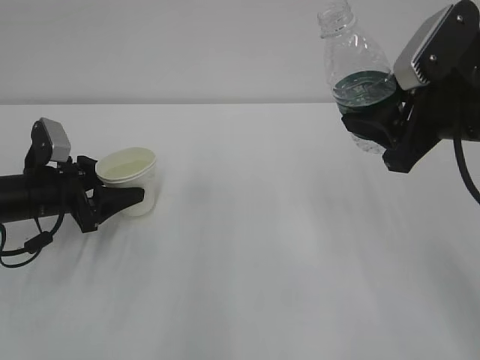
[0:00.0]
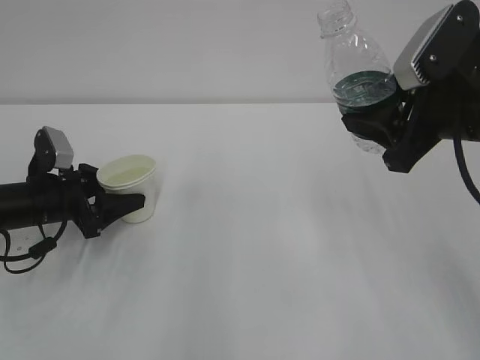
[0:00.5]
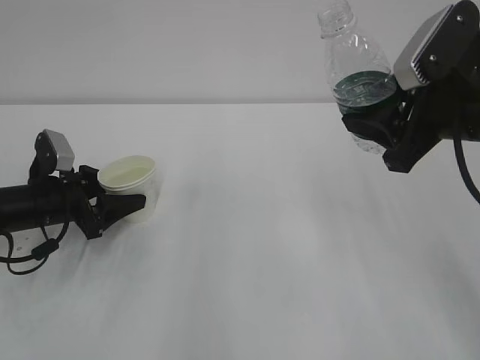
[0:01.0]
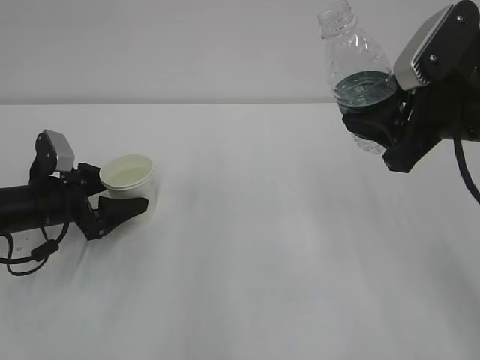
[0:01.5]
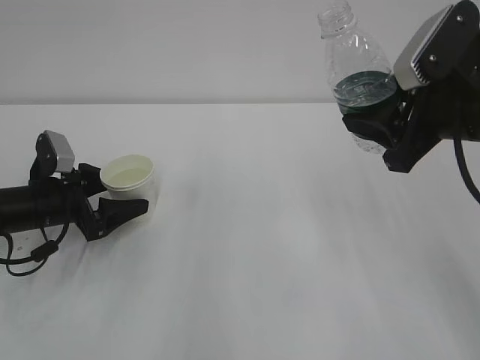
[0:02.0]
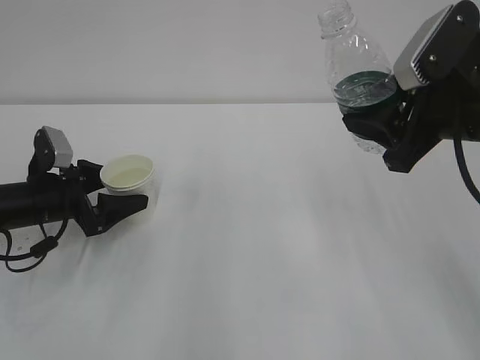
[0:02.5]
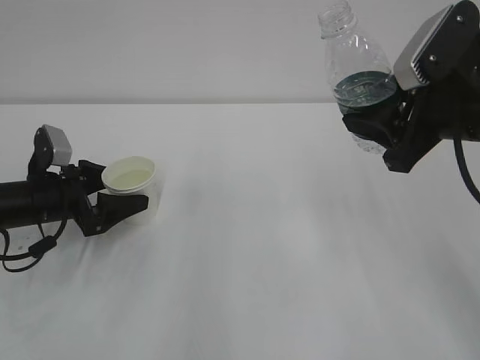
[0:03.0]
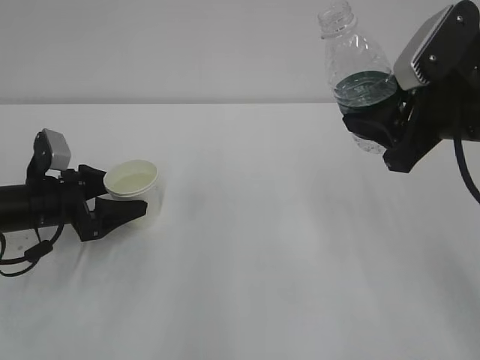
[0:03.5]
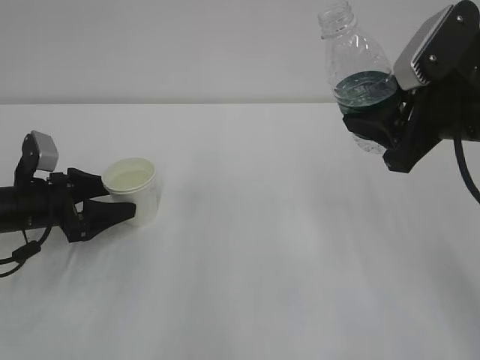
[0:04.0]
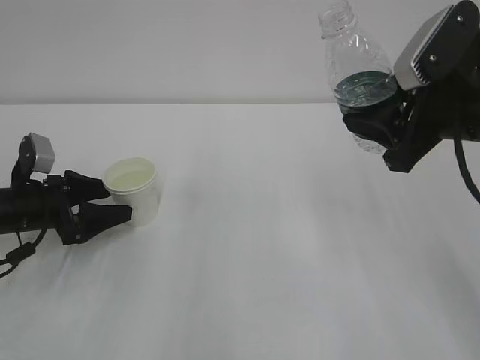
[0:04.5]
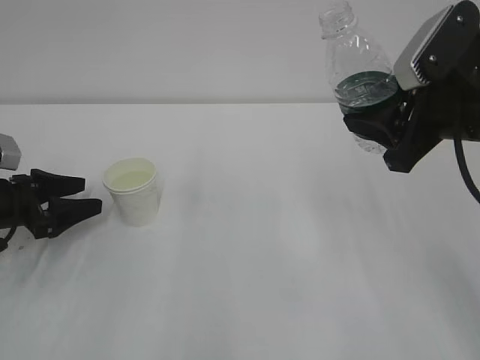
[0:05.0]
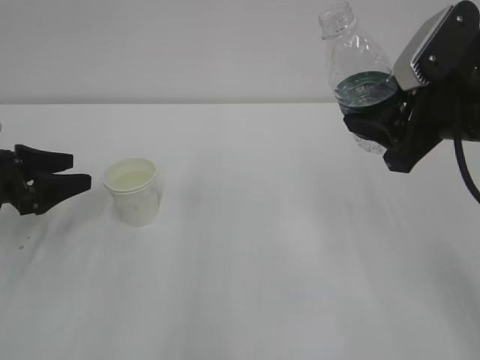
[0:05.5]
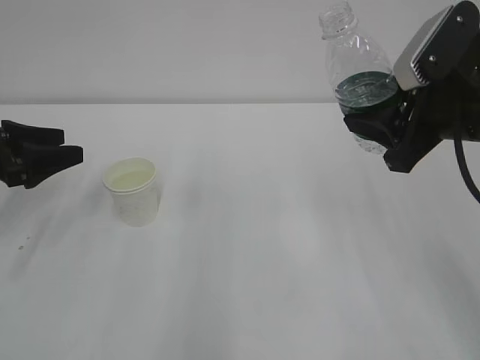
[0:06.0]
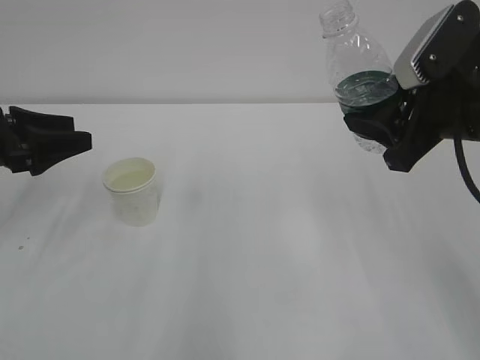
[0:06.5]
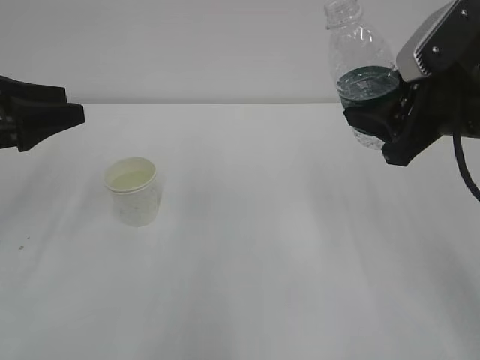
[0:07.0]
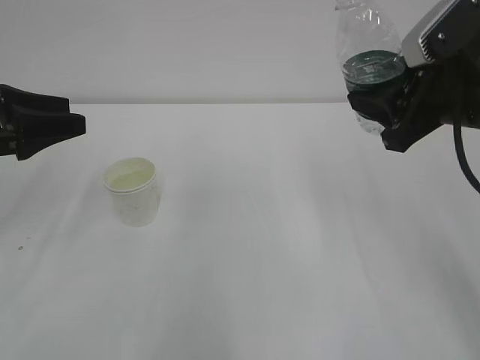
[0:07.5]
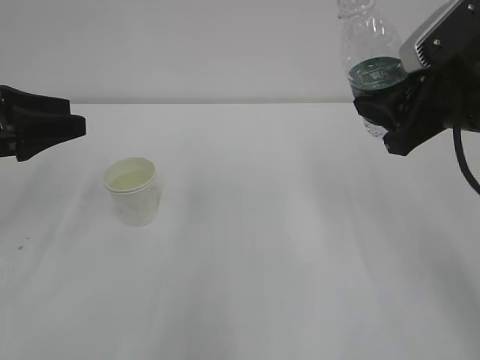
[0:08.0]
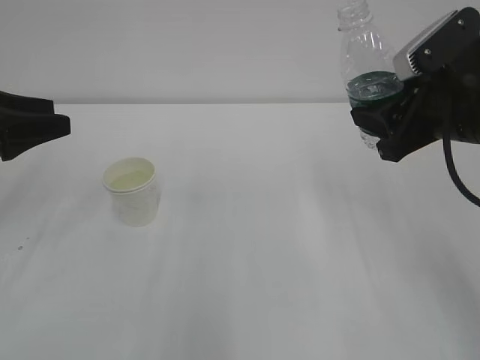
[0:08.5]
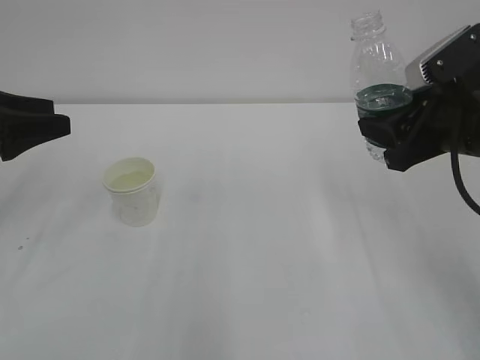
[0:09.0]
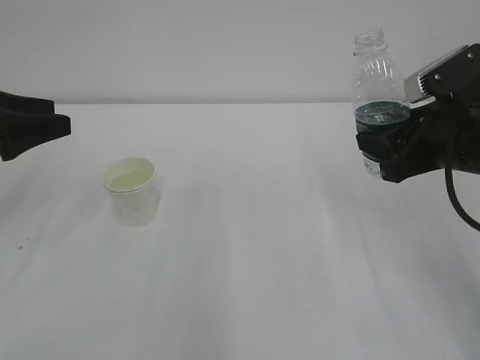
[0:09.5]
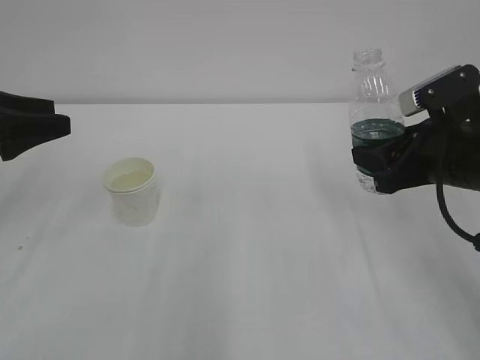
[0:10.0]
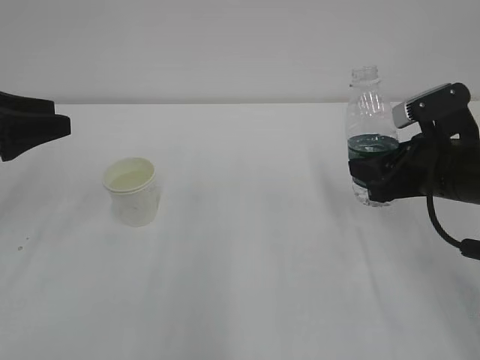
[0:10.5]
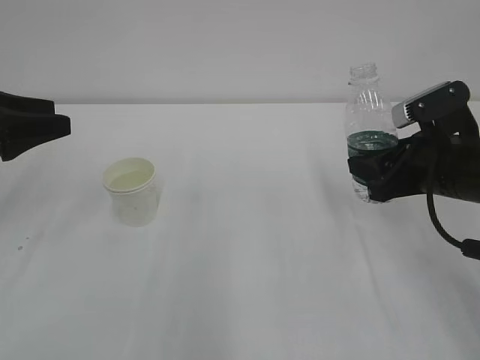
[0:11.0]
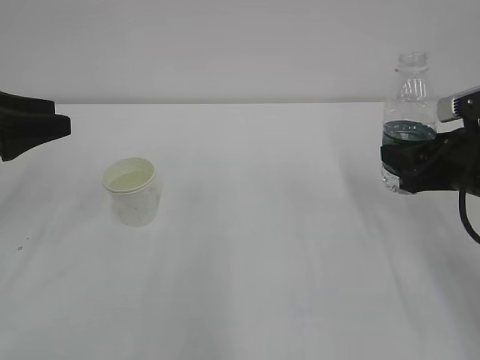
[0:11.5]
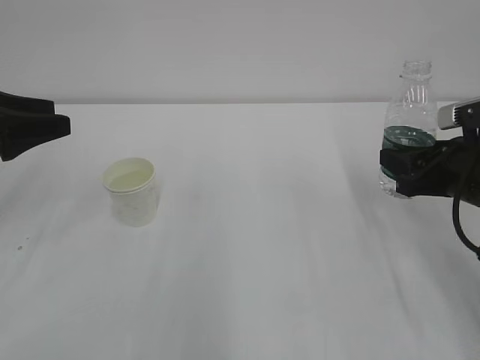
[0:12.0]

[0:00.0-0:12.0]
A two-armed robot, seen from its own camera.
Step, 0:00.0 to 0:02.0: Put the cup down with left gripper.
0:00.0 to 0:02.0: The left gripper opens its fingers.
0:02.0 to 0:04.0: There are only small adjustments of the grippers.
0:04.0 to 0:06.0: The left gripper shifts some 10 cm upward and to the left.
0:06.0 to 0:08.0: The left gripper shifts approximately 5 cm upward.
0:08.0 to 0:10.0: The right gripper moves downward, some 5 cm.
0:10.0 to 0:12.0: The right gripper changes place by roughly 5 cm.

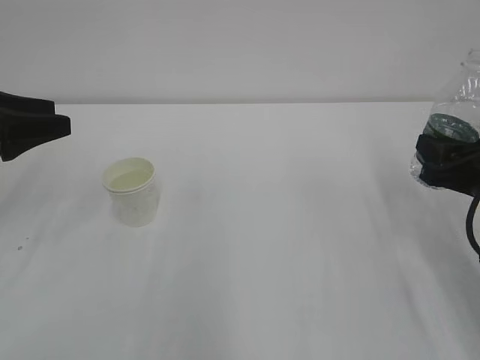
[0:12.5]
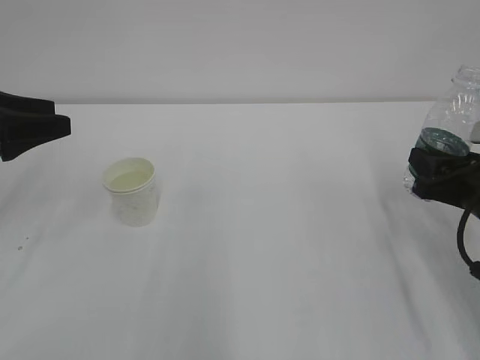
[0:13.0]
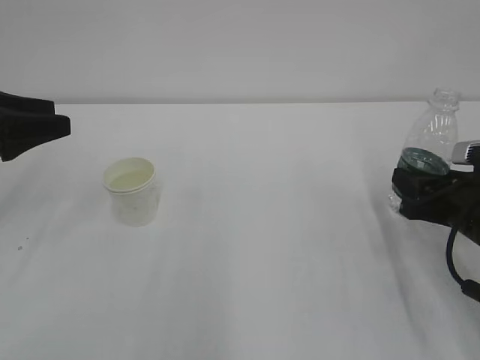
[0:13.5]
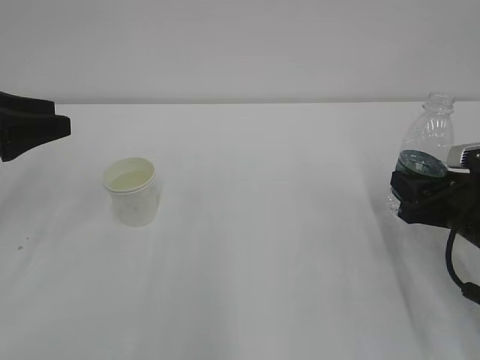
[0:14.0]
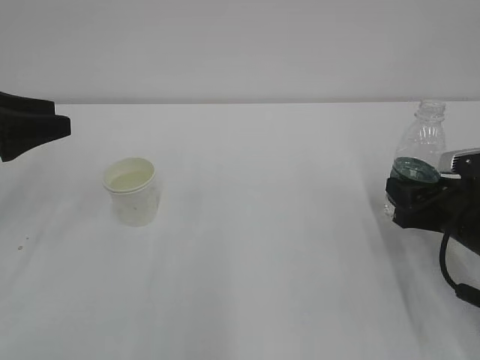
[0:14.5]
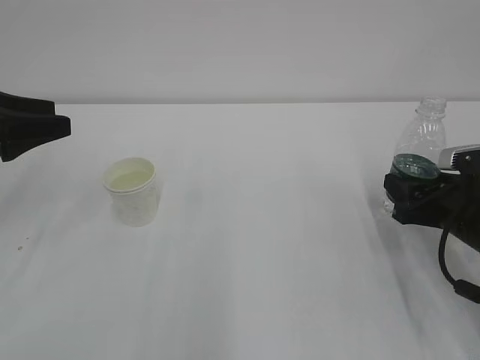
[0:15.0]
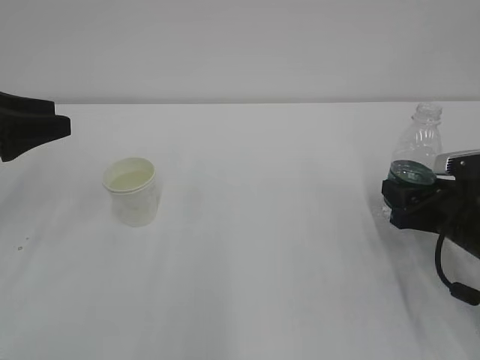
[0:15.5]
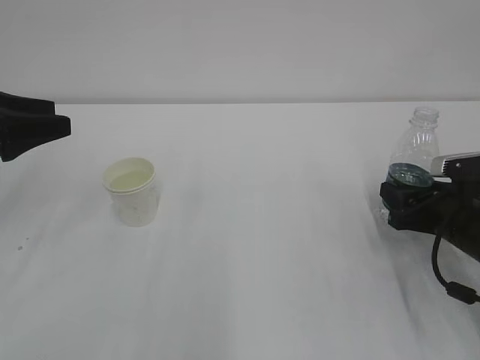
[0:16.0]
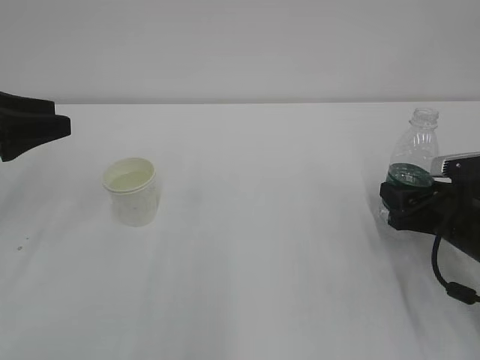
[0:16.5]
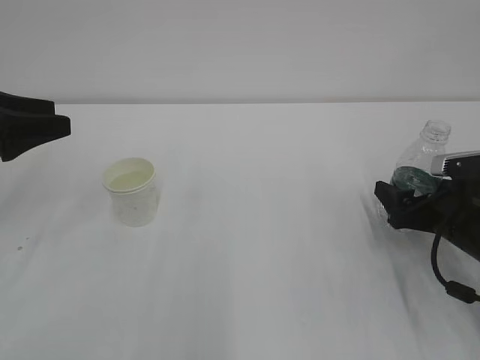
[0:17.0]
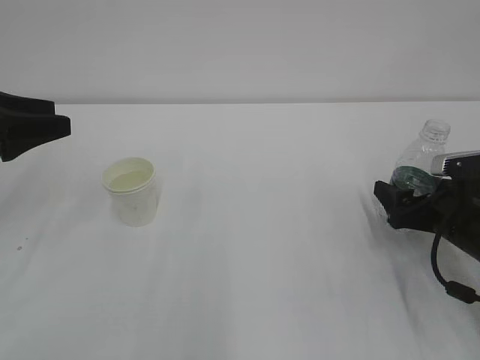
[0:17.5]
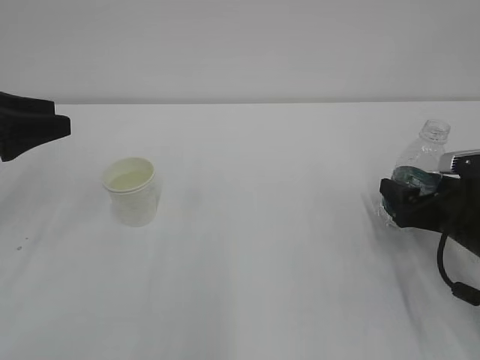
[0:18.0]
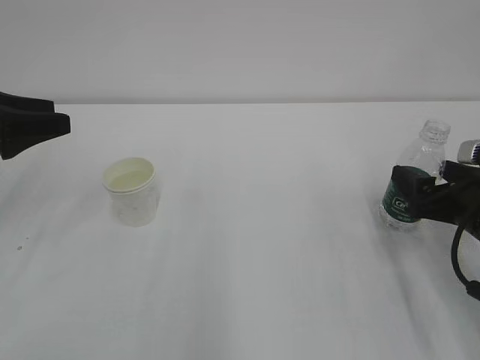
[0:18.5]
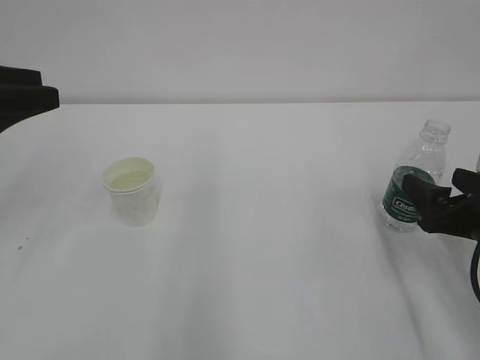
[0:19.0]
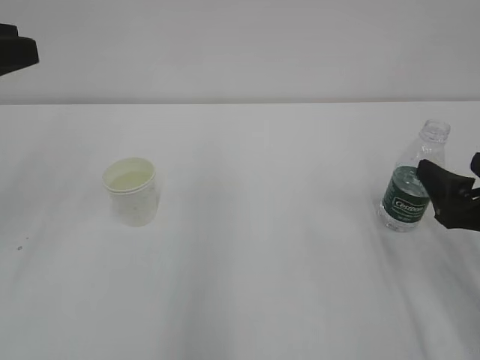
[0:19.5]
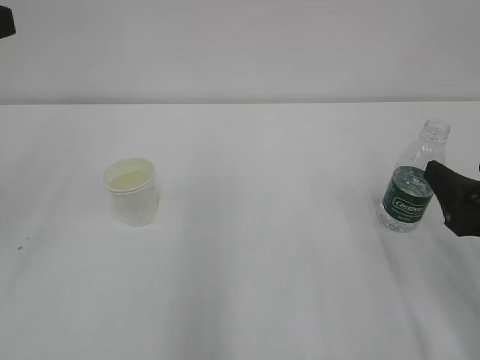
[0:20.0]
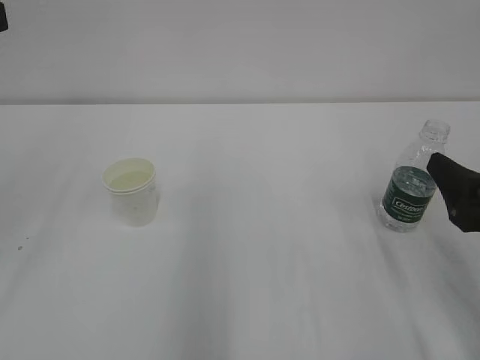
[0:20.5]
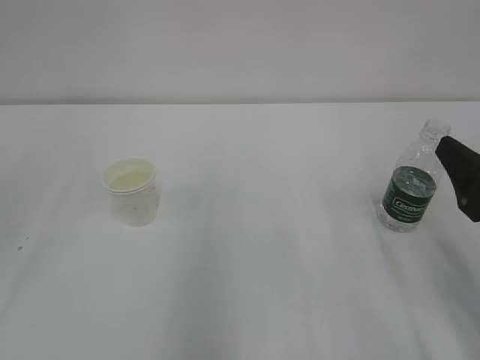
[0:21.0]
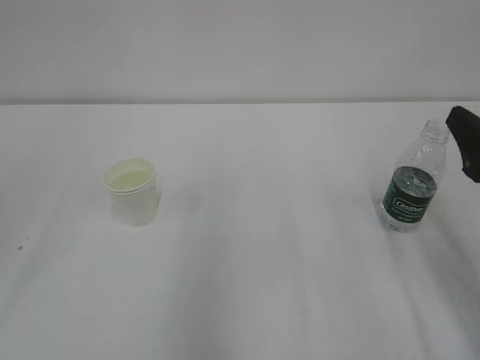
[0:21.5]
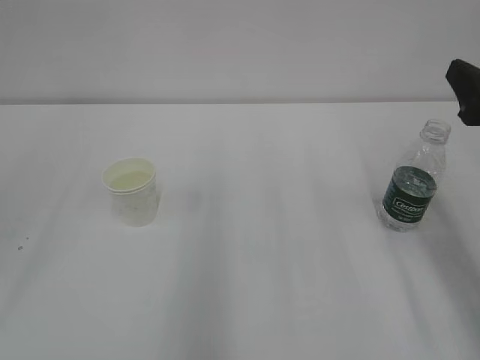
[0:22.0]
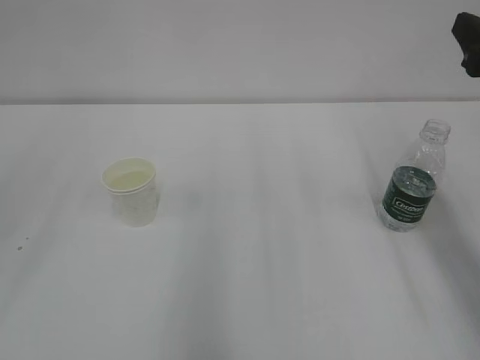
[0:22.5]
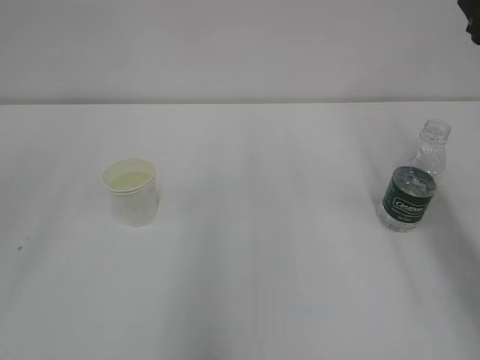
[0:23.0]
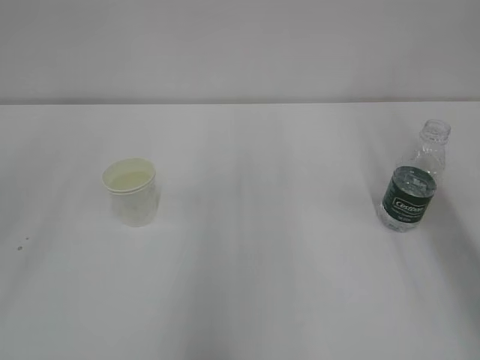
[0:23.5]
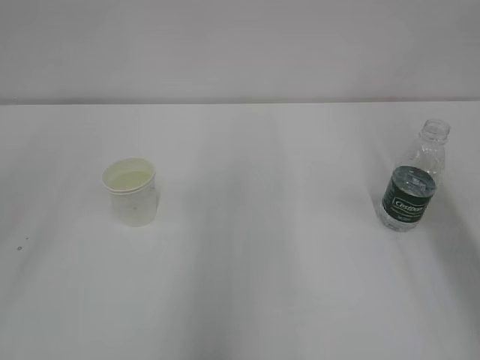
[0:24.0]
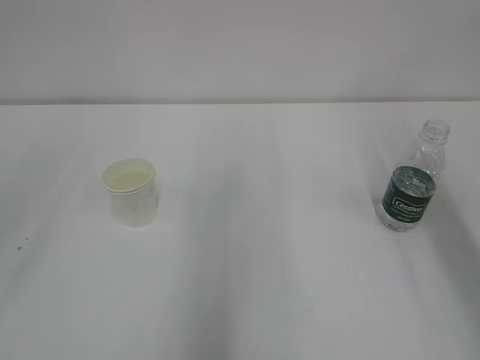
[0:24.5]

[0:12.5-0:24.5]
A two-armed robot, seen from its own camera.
Step, 0:12.5 to 0:18.0: Put the bottle down with right gripper.
0:12.5 to 0:14.5: The right gripper goes approximately 5 cm downward.
0:14.5 to 0:16.5: The grippers make only small movements.
0:16.5 to 0:18.5: The right gripper opens its fingers.
0:18.5 to 0:20.5: The left gripper is displaced upward and backward by approximately 15 cm. The right gripper heads backward and upward, covering about 10 cm.
0:20.5 to 0:22.5: The right gripper goes some 15 cm upward and forward.
0:22.5 to 0:24.5: The right gripper shifts some 10 cm upward.

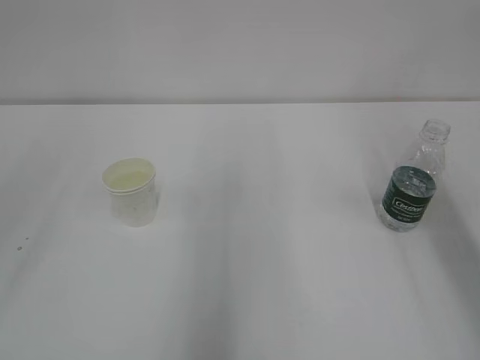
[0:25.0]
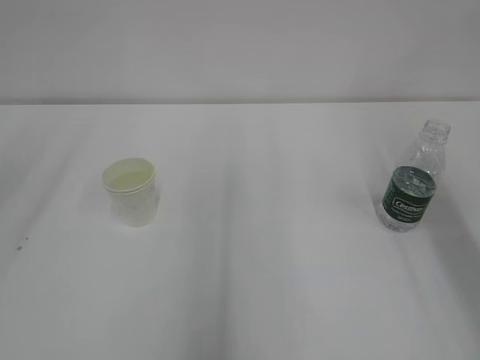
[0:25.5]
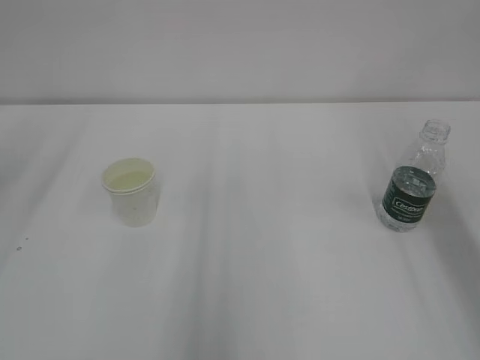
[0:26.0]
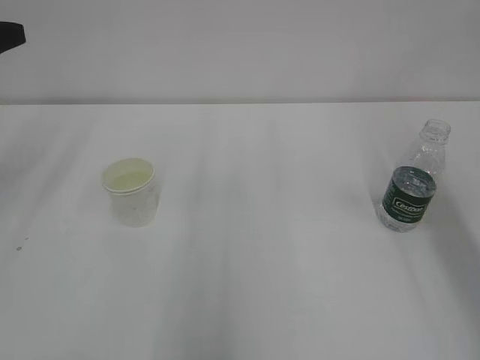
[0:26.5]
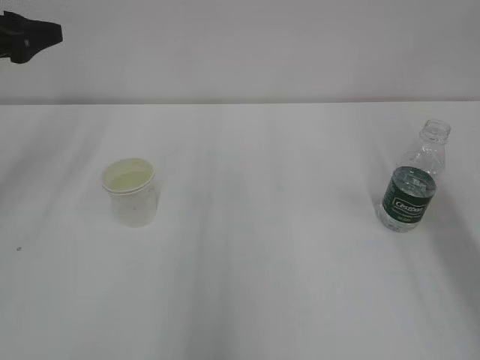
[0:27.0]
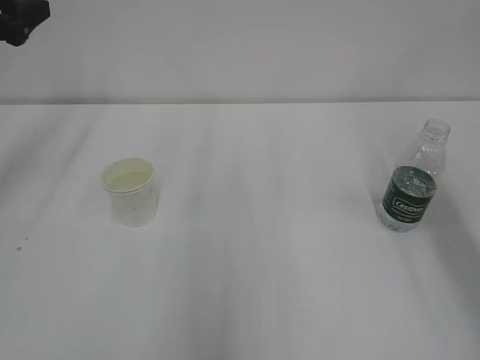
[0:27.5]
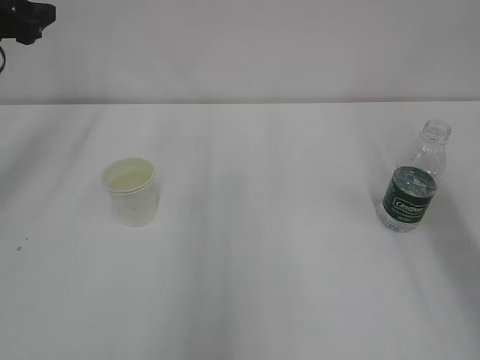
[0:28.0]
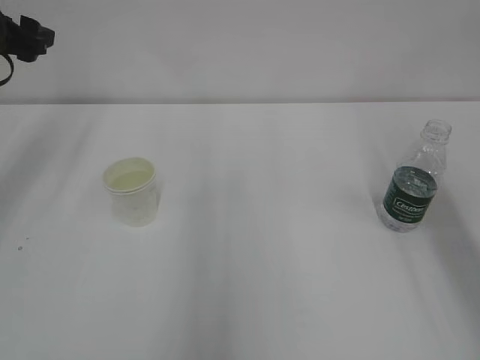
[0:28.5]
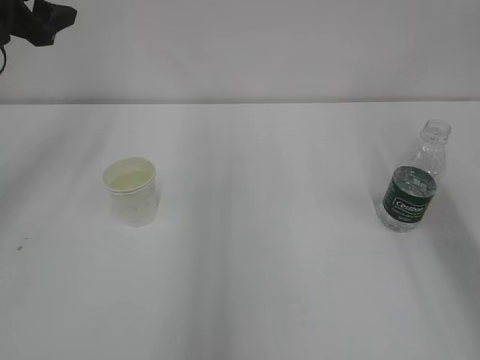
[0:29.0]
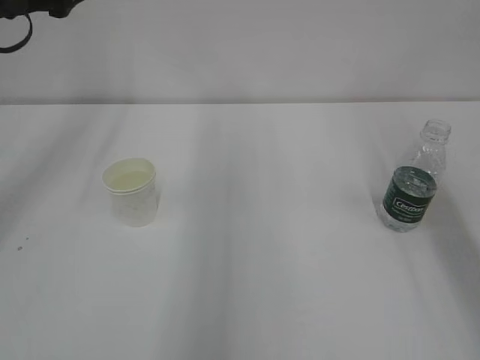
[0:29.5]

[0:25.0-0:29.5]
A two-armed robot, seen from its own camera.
0:25.0 to 0:27.0: The left gripper is displaced forward and downward by some 20 cm.
0:27.0 to 0:29.5: The left gripper heads to the right, covering approximately 5 cm.
